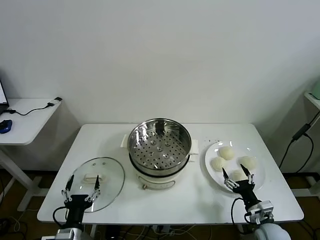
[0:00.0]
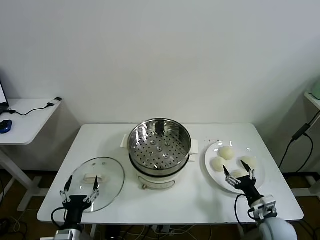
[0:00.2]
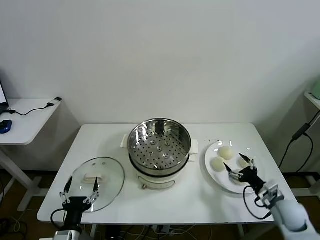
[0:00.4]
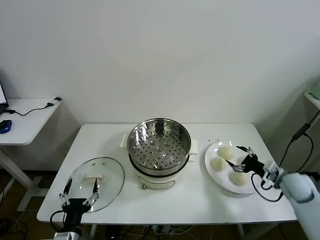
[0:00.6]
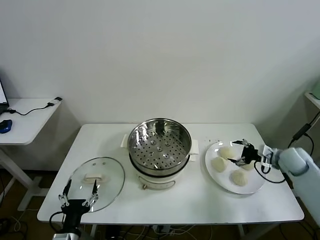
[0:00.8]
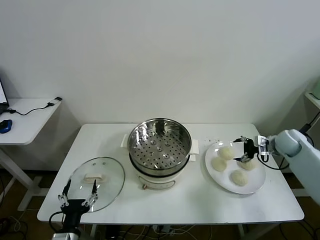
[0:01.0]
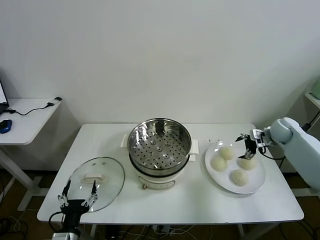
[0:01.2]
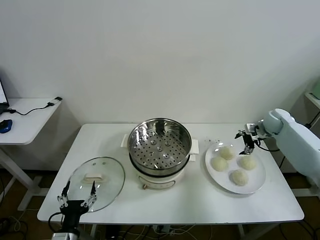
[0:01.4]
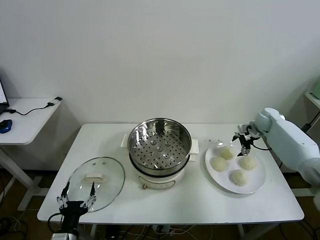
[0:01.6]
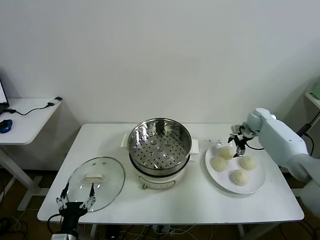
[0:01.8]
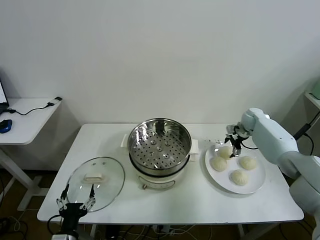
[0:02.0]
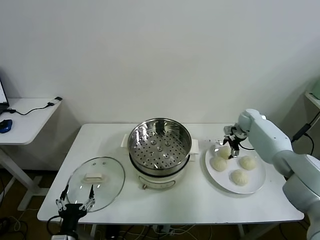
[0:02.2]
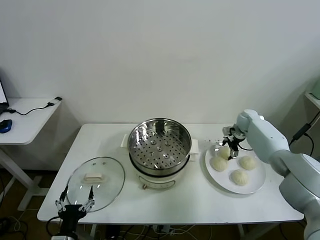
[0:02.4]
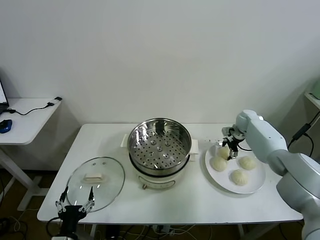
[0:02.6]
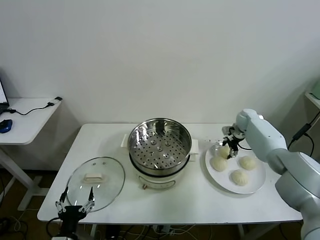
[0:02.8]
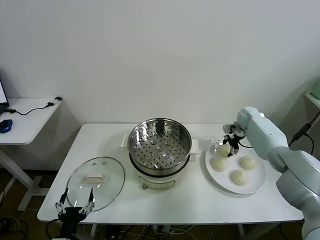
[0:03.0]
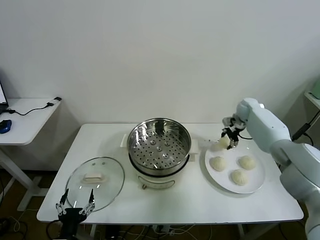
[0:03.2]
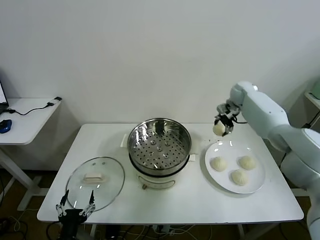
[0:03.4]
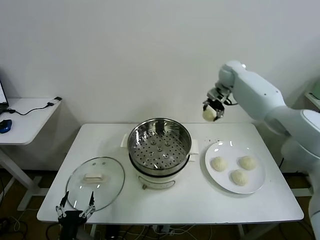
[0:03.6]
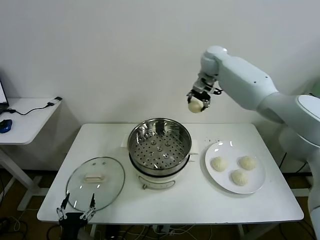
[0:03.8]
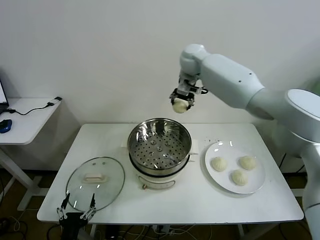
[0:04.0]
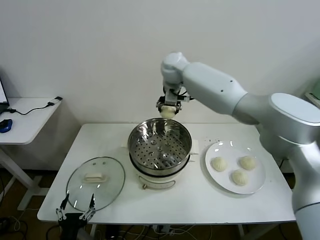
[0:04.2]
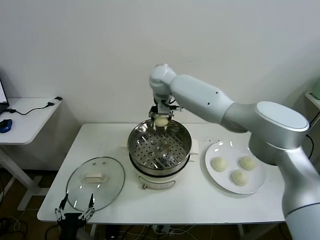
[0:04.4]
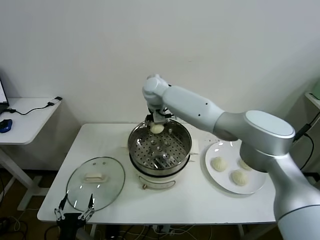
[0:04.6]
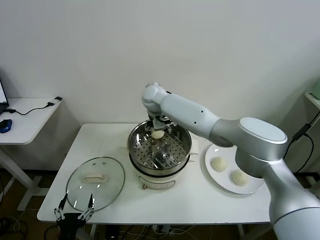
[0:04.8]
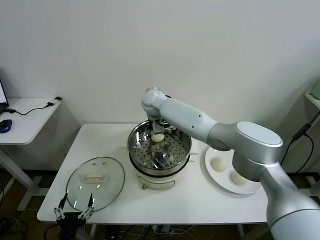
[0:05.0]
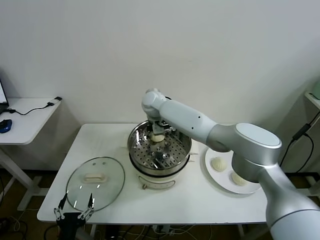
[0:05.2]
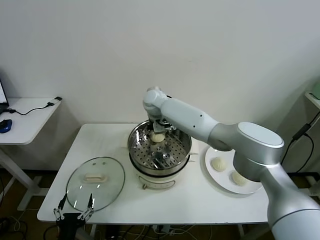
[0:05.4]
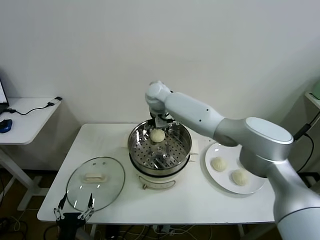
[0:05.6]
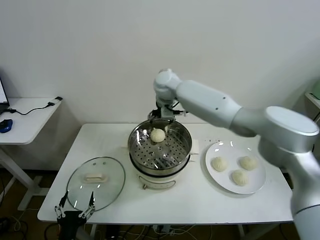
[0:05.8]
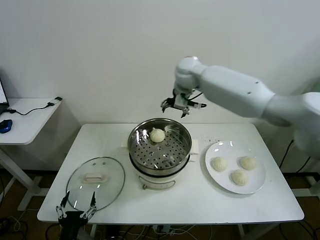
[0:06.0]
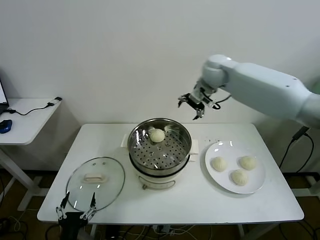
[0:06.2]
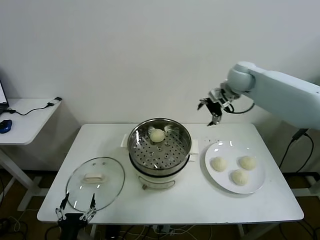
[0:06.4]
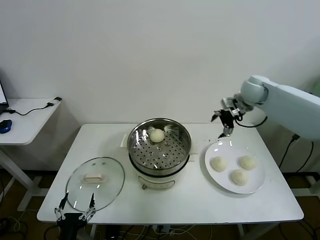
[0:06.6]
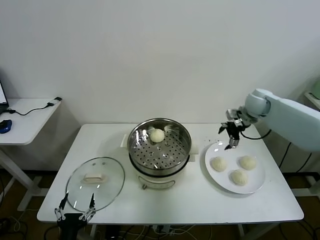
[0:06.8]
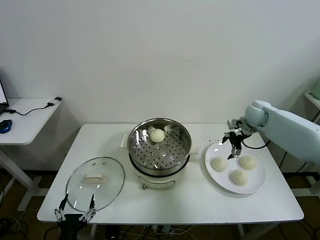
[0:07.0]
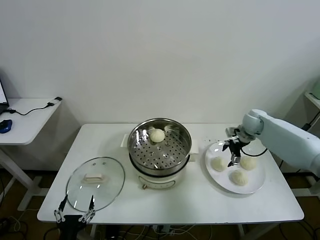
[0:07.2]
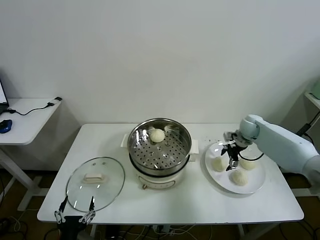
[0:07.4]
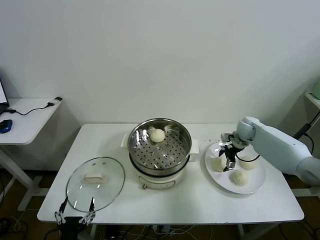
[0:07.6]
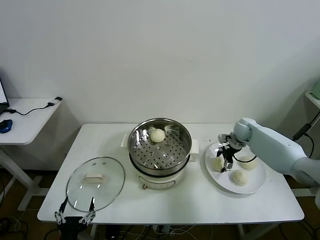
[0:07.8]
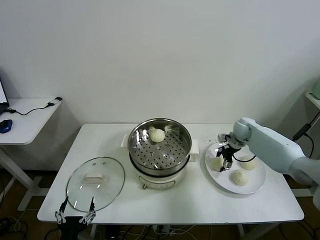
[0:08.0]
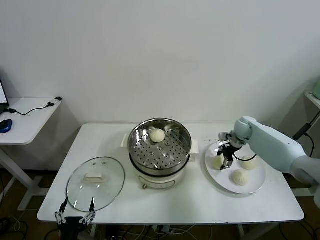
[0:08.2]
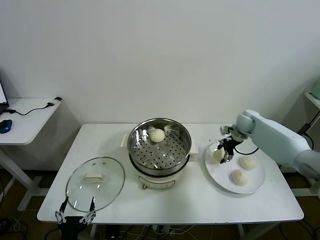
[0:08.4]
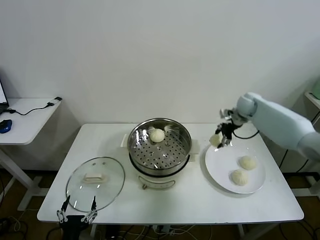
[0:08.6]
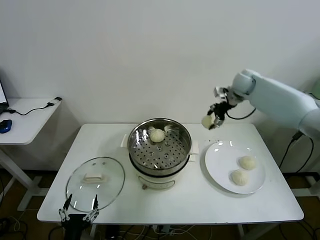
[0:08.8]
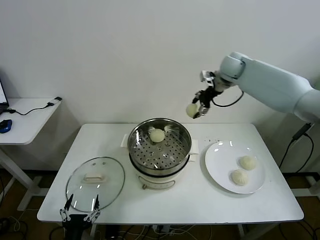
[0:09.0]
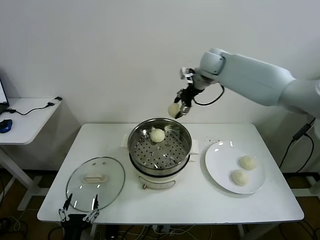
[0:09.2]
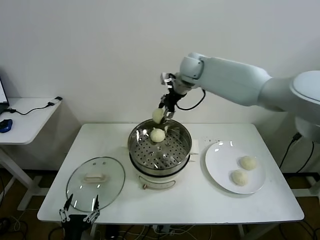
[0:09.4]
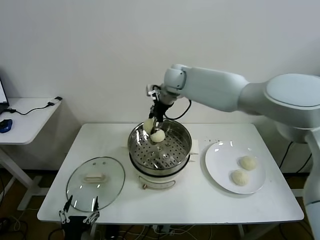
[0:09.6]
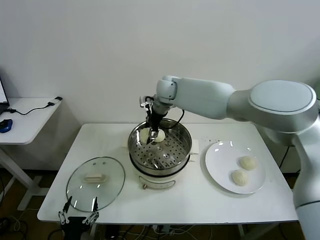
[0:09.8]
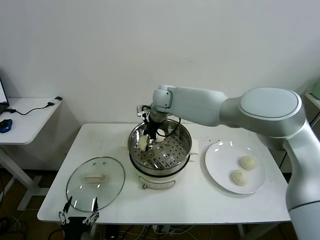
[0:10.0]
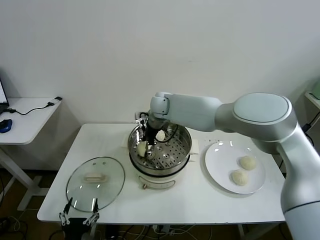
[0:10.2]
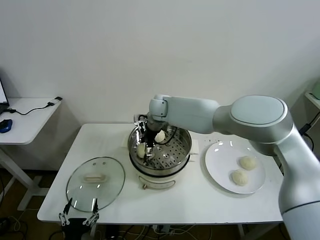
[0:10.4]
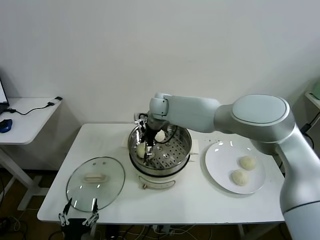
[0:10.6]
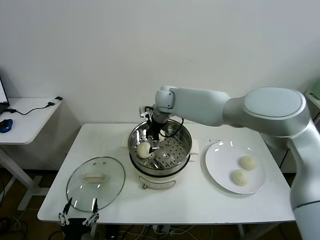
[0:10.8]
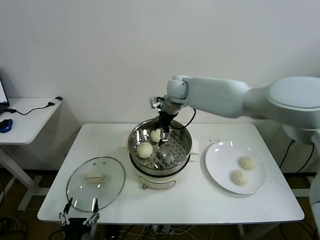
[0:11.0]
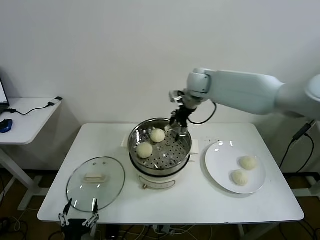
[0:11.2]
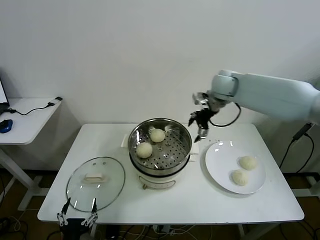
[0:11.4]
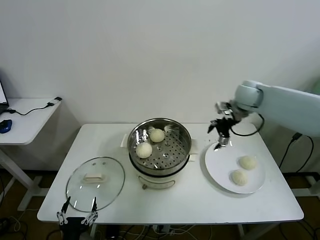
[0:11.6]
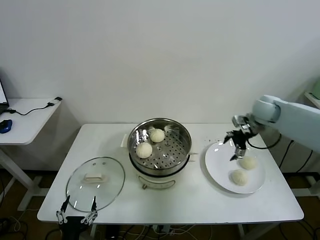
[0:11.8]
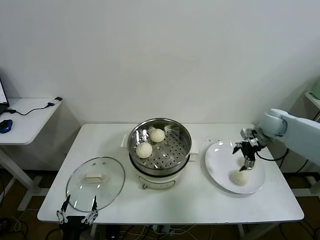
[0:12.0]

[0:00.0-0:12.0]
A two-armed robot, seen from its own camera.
Task of the whole recording: take steamed baozi put them in steamer then cover it.
Step, 0.0 to 2.8 s: Grasp the baozi in the plate with right gripper.
Step, 3.0 to 5.2 s: Place the baozi on the steamer with right gripper.
Step, 5.4 to 8.2 s: Grasp the baozi in the plate with right gripper.
Step, 8.4 to 10.6 s: Place the baozi on the steamer with right gripper.
1.6 to 3.0 s: The right gripper is displaced to the left by about 5 cm, and closes up.
3.0 to 4.4 s: The right gripper shifts roughly 40 cm to the left and upward.
4.4 to 6.0 s: The right gripper heads to the right, covering some 10 cm, and opens its fingers.
6.0 to 7.6 s: The right gripper is displaced to the right and downward by some 35 cm.
7.6 to 9.0 s: The right gripper shifts approximately 30 cm upward and to the left, and closes up.
9.0 to 10.4 s: The right gripper is displaced to the left and downward by about 30 cm, and opens.
10.4 to 12.0 s: The right gripper is displaced to the right by some 40 cm.

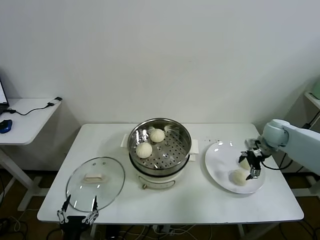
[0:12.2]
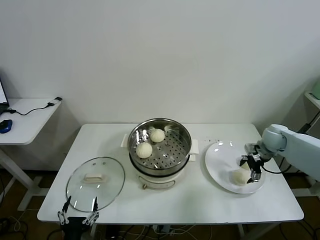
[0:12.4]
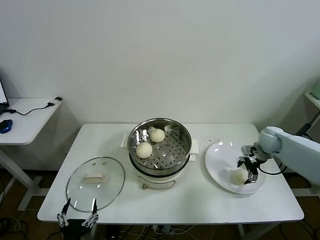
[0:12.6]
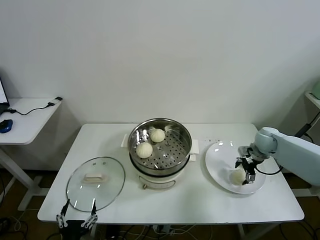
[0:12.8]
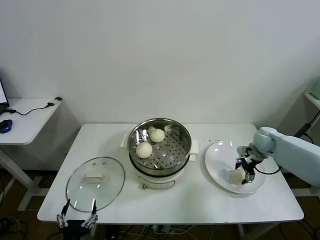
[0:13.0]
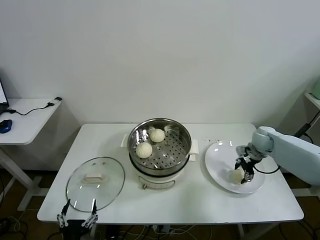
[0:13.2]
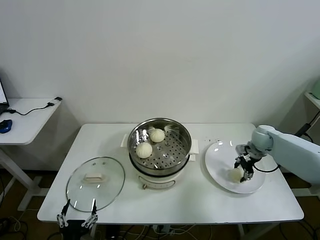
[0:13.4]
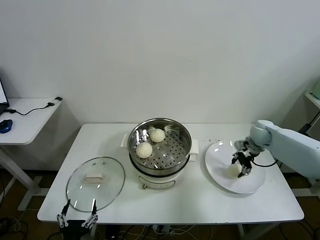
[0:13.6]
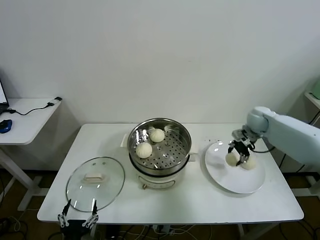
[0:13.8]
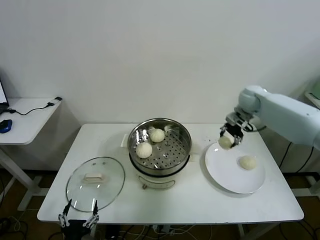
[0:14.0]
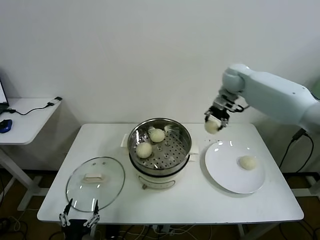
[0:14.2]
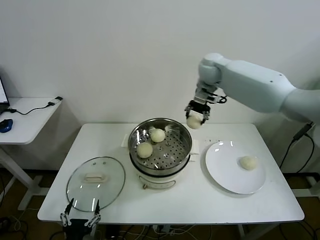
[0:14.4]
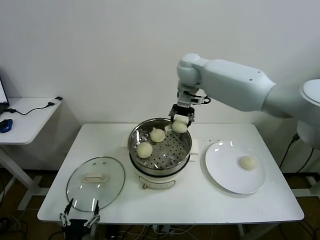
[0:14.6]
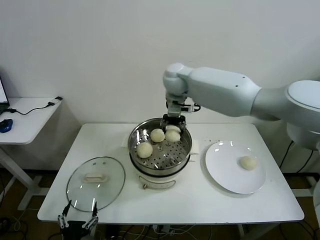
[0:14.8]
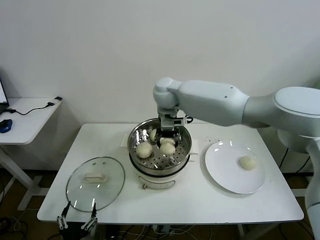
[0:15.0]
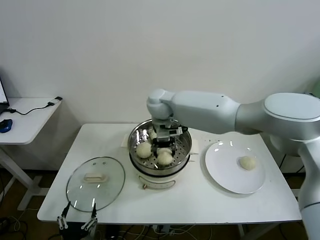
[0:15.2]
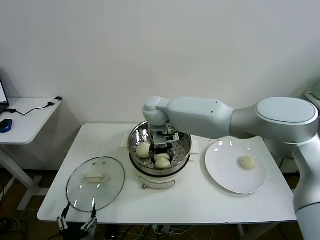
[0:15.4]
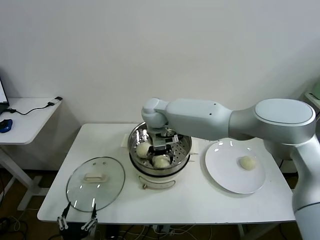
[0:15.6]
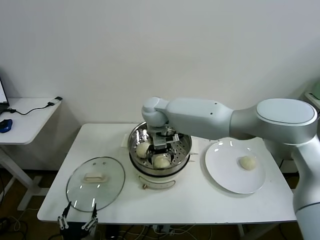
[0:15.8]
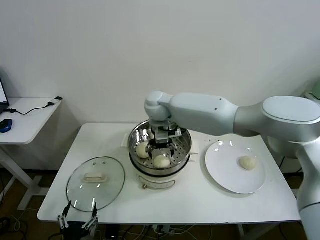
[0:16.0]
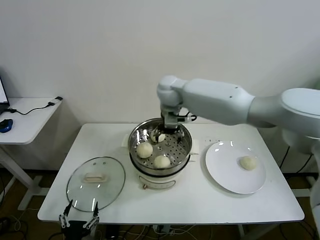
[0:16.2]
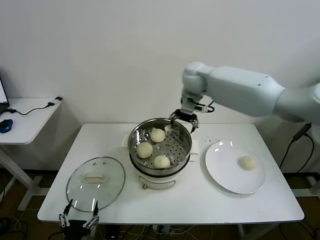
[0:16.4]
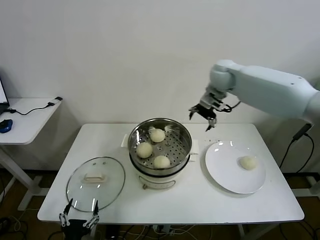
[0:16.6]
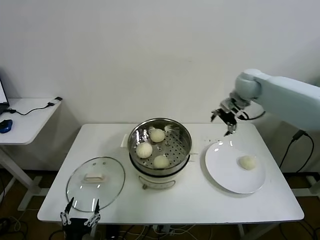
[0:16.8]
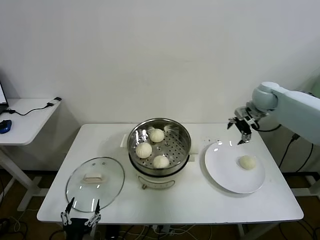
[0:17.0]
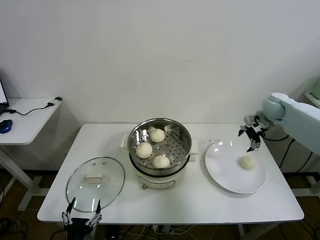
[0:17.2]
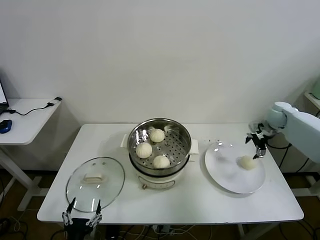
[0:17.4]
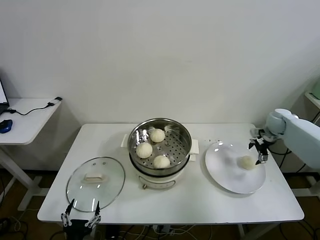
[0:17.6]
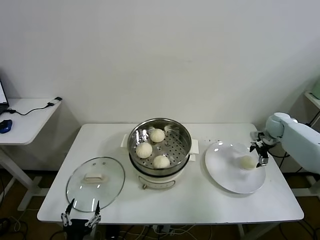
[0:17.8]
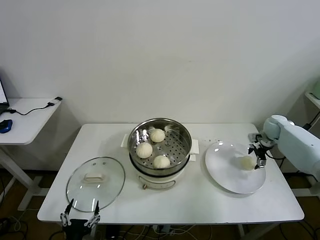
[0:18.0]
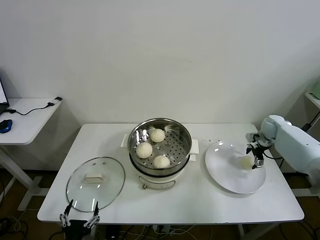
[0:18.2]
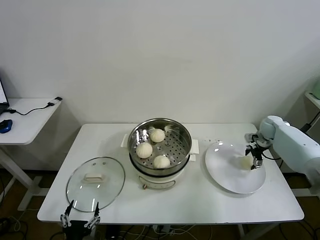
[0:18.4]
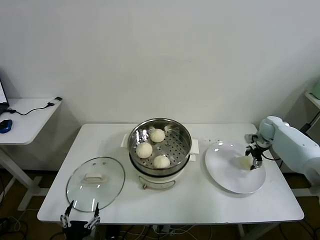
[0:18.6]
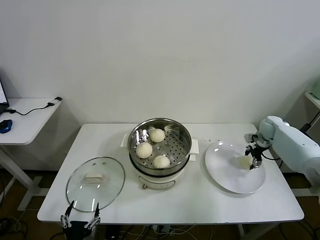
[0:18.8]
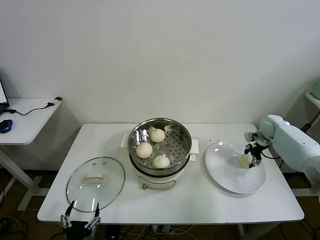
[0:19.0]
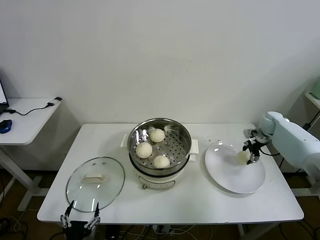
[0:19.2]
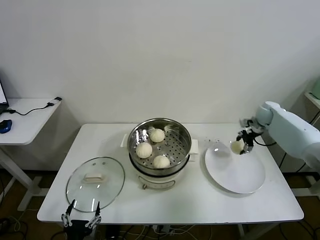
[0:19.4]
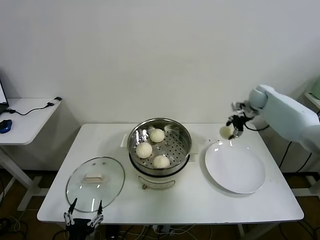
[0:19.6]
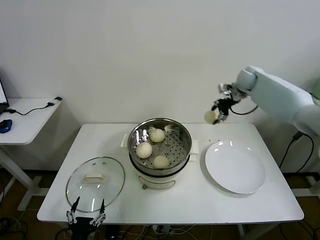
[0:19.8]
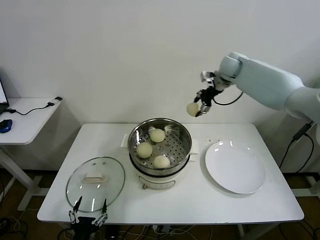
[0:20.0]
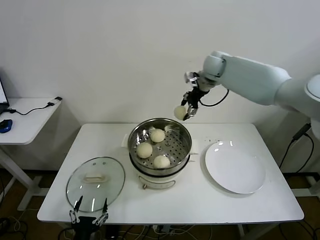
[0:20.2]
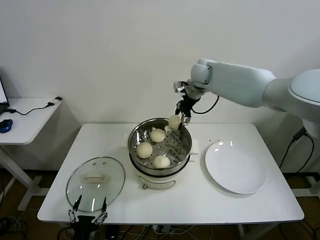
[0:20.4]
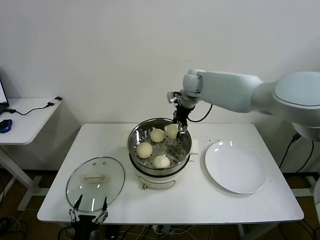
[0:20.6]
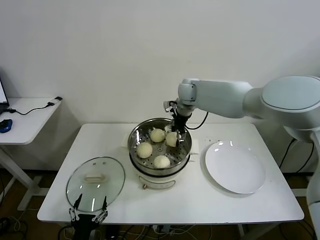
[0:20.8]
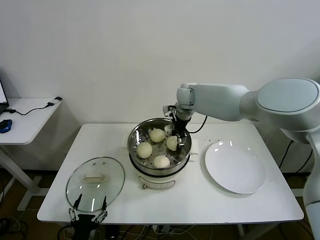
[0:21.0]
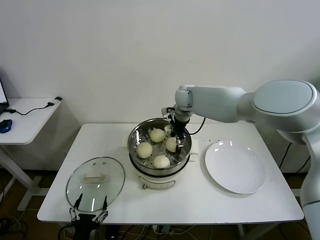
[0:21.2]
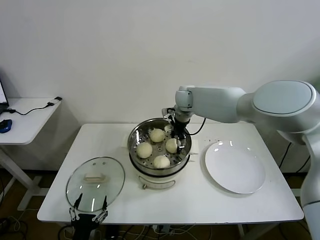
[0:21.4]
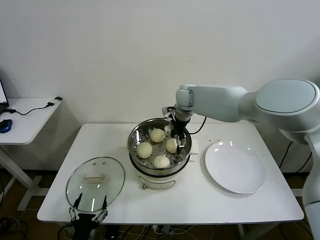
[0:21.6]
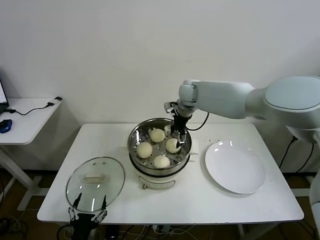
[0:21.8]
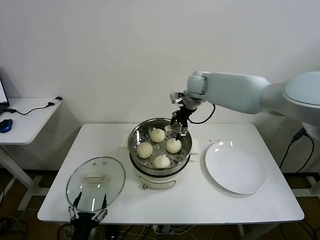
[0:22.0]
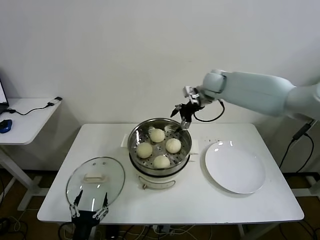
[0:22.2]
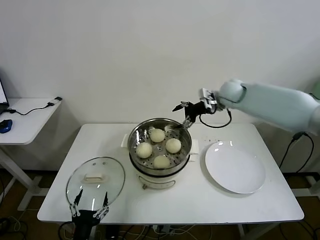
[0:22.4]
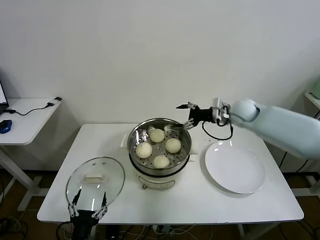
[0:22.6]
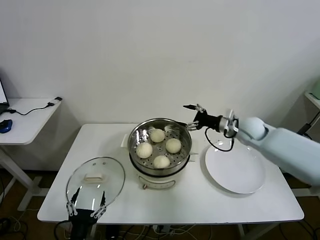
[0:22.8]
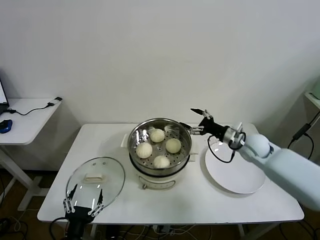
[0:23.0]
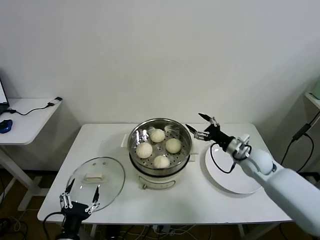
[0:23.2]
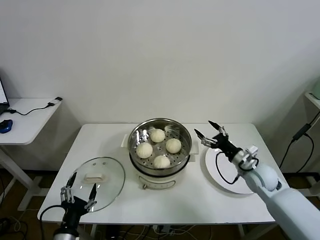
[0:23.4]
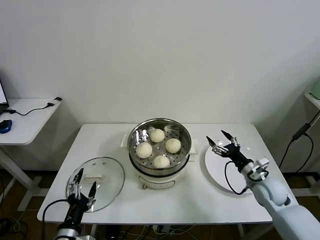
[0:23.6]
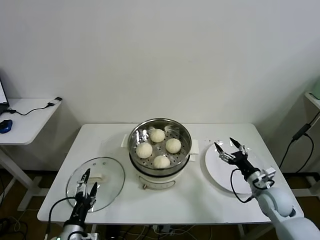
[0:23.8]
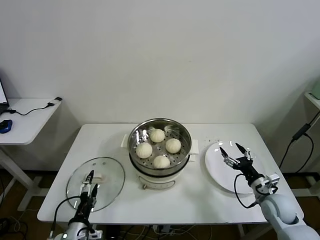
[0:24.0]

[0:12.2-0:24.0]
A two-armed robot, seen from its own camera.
Task of the whole recording: take steamed baozi put them in steamer then cover it.
Step, 13.4 to 16.0 s: Place the baozi on the steamer with right gripper.
Step, 16.2 to 19.0 s: Grasp the baozi in the plate with right gripper.
Step, 19.2 to 22.0 s: Place the baozi on the steamer with right gripper.
12.2 to 13.6 s: The right gripper changes place by roughly 5 cm, and closes its fingers.
13.6 to 15.2 s: The right gripper goes approximately 40 cm to the left.
15.2 to 16.6 s: The right gripper goes approximately 20 cm to the right, and opens.
16.6 to 18.2 s: The right gripper is displaced to the right and downward by roughly 35 cm.
18.2 to 19.6 s: The right gripper moves upward, to the left and forward, approximately 15 cm, and closes up.
19.6 to 21.0 s: The right gripper is displaced to the left by some 30 cm.
21.0 to 22.6 s: The right gripper travels to the right by about 20 cm, and opens up.
22.6 to 24.0 s: The right gripper goes roughly 35 cm backward, downward and to the right. Meanwhile the left gripper heads forward, covering about 5 cm.
